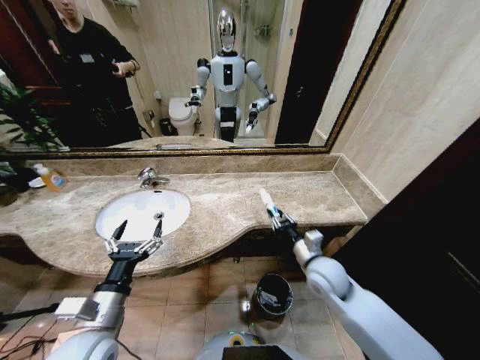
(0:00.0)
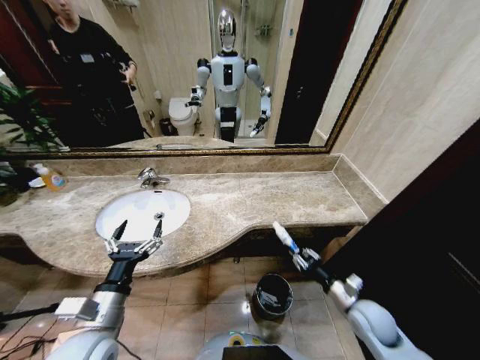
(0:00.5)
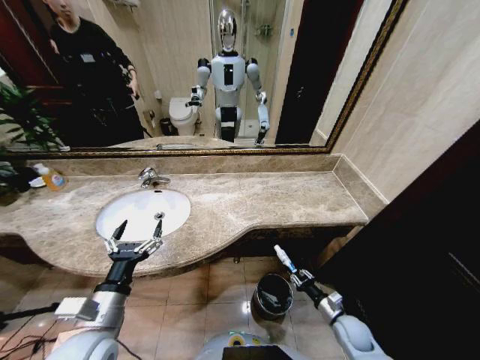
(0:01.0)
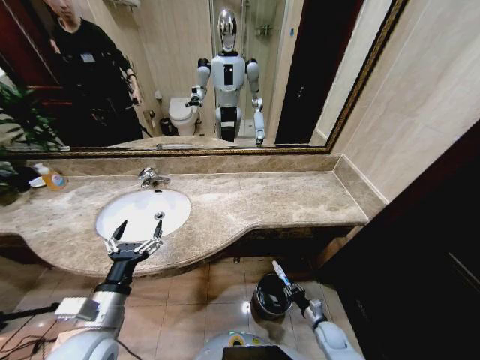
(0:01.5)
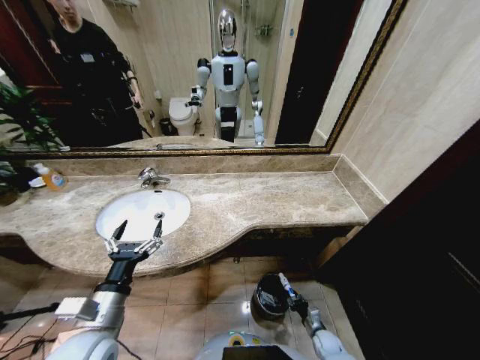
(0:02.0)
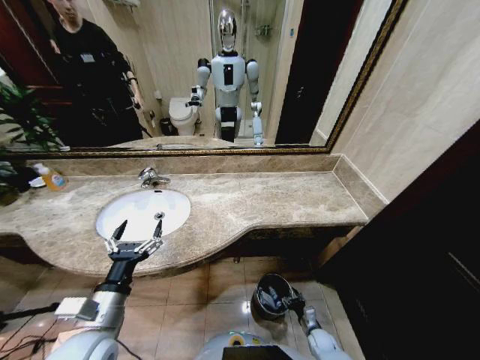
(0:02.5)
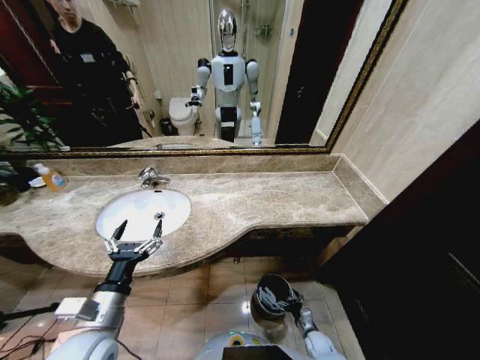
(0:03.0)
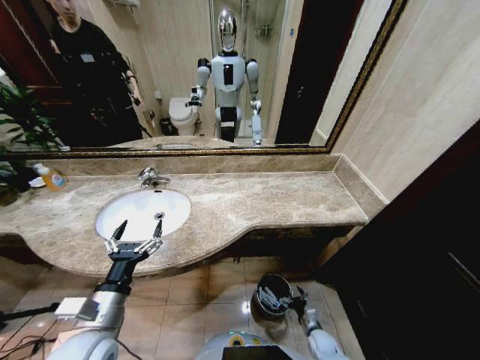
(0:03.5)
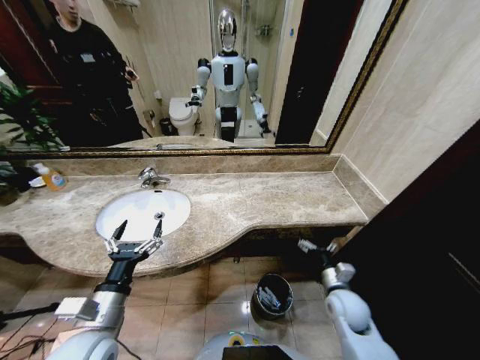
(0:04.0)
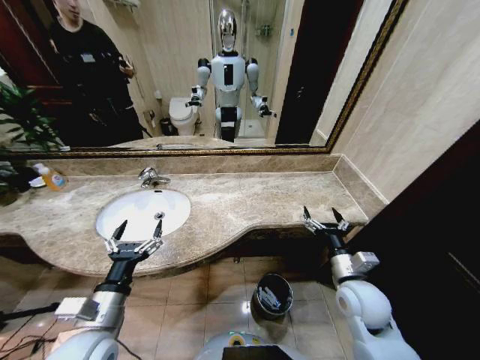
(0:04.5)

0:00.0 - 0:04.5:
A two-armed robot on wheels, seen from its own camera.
Task of the whole recording: Pick up the trash from the sink and place it in the trash bin.
0:00.0 - 0:02.0: The right gripper moves downward, approximately 40 cm.
0:02.0 - 0:04.5: The right gripper is displaced upward by roughly 40 cm, and opens.

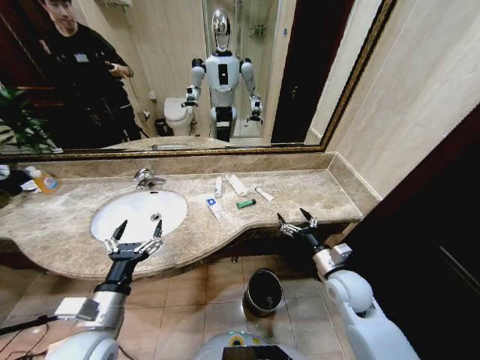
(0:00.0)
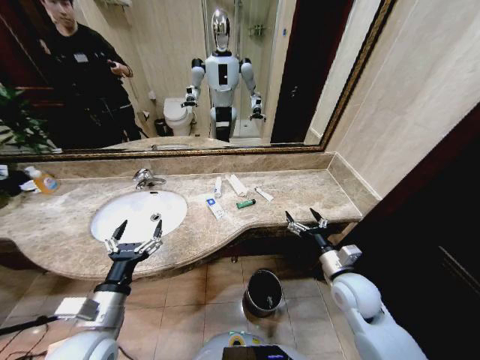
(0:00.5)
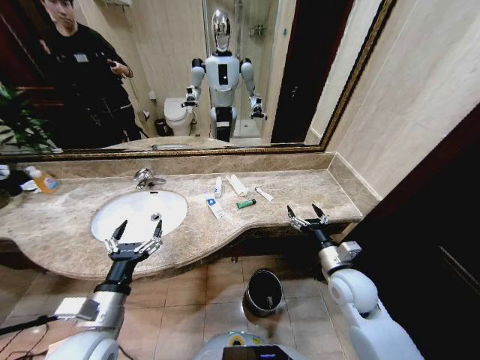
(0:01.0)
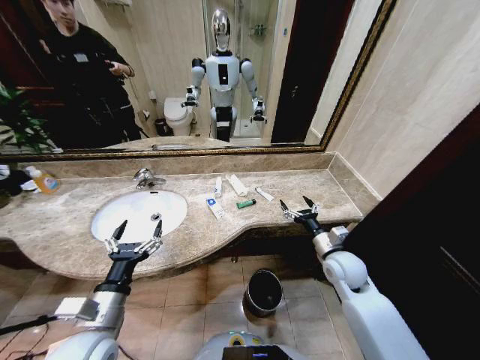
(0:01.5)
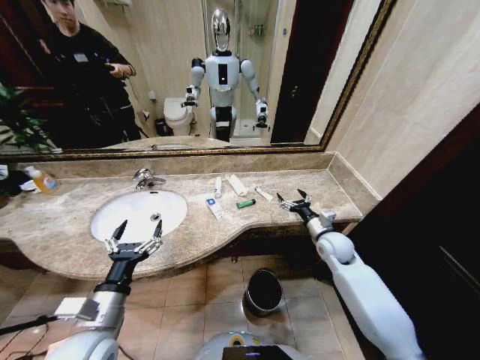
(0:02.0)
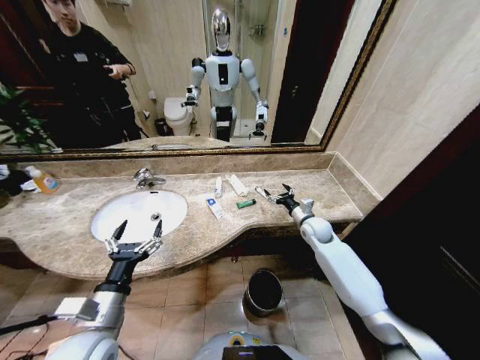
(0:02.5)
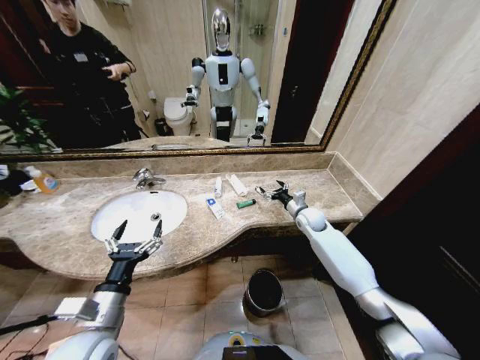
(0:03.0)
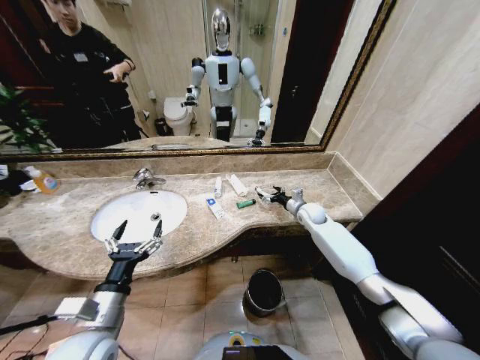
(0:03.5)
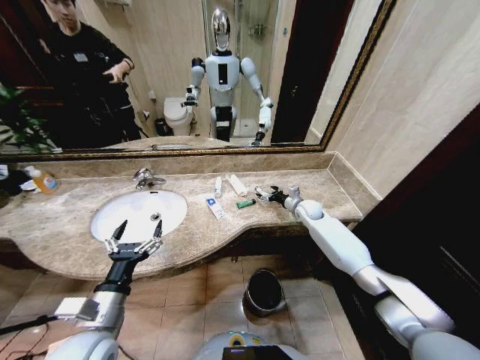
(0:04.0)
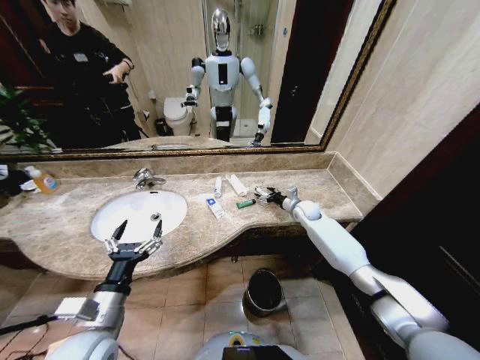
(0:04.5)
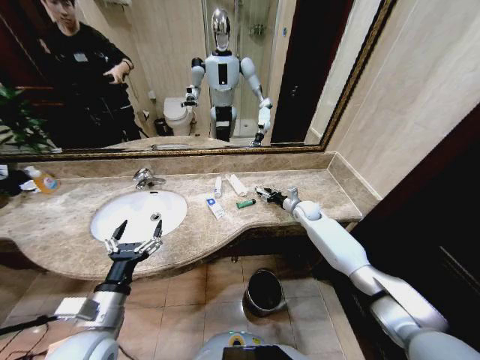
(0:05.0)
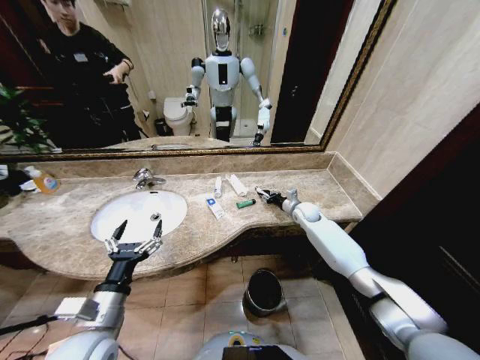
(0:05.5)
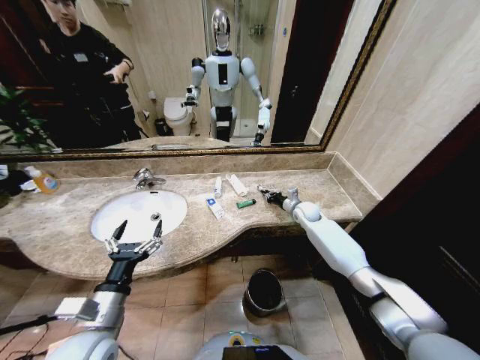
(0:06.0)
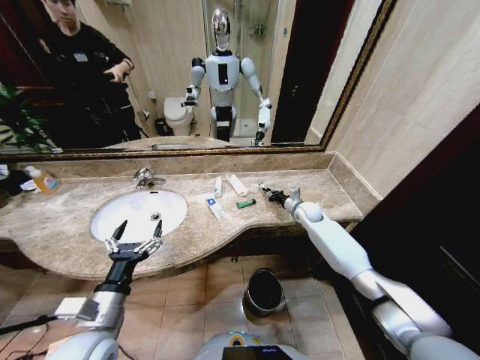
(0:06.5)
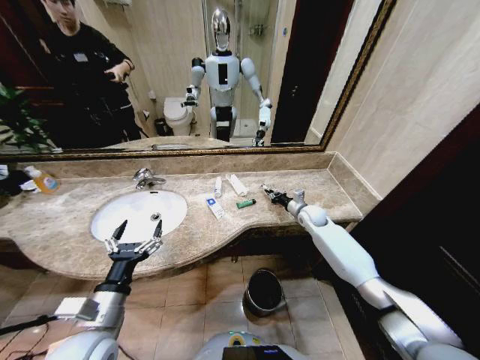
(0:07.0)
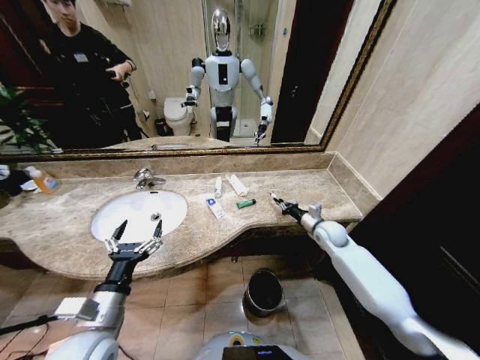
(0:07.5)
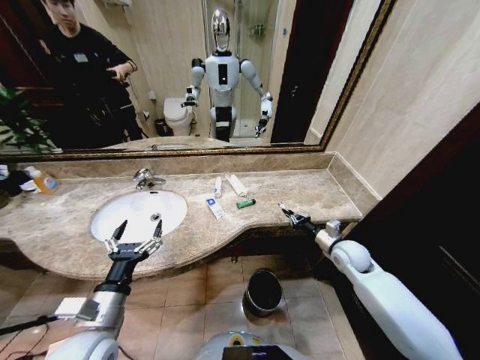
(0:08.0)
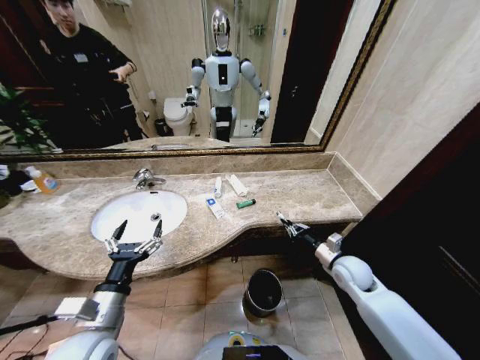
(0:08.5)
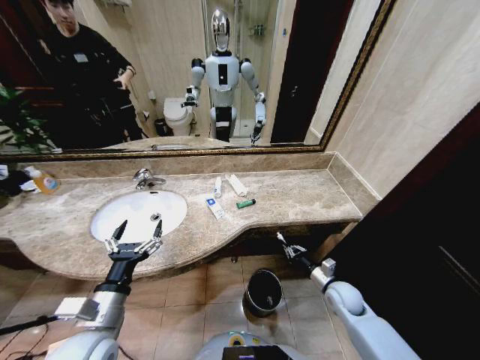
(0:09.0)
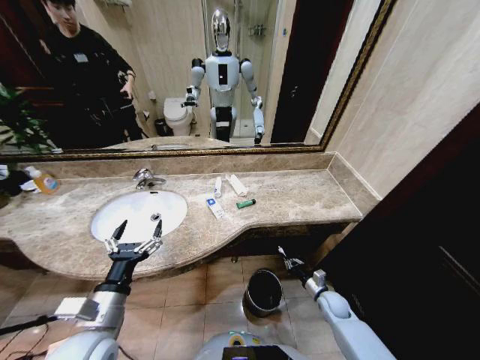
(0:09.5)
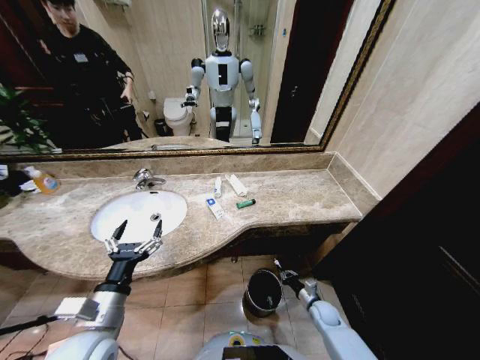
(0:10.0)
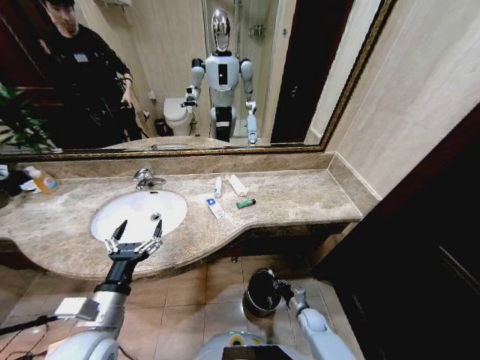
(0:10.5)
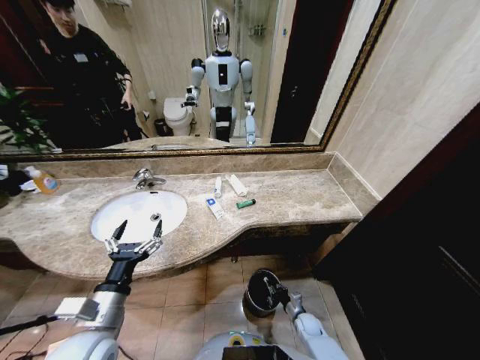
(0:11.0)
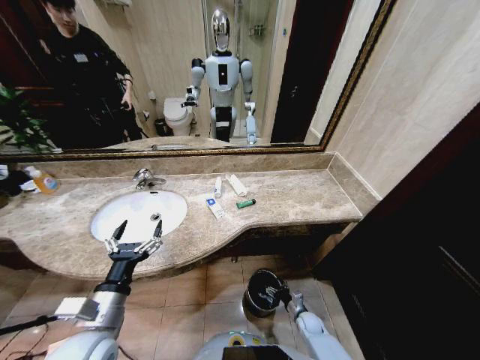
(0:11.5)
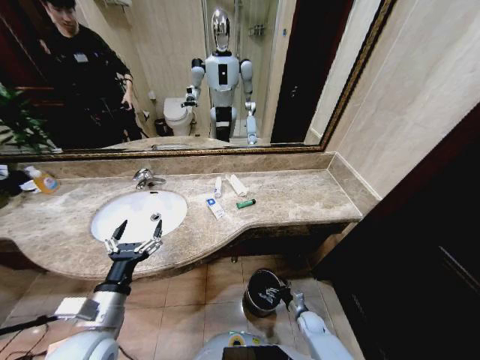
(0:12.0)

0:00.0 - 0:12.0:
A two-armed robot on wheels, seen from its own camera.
Task of the whole recording: Pick up the trash from the sink and place it in the trash bin.
0:02.0 - 0:04.0: The right gripper moves forward, approximately 15 cm.
0:04.0 - 0:06.0: The right gripper closes.
0:06.0 - 0:08.0: The right gripper heads backward, covering roughly 20 cm.
0:08.0 - 0:10.0: The right gripper goes roughly 30 cm downward and backward.
0:10.0 - 0:12.0: The right gripper travels downward by approximately 5 cm, and opens its fingers.

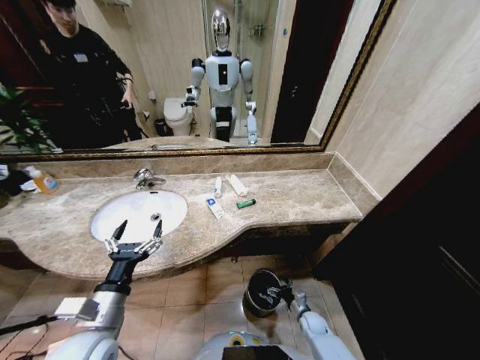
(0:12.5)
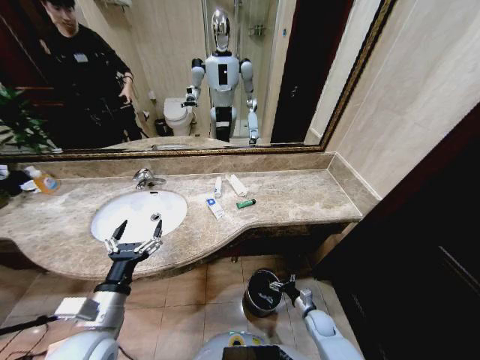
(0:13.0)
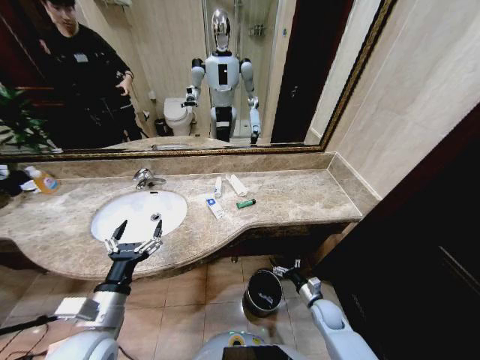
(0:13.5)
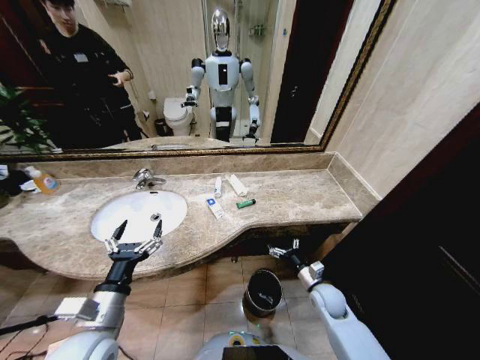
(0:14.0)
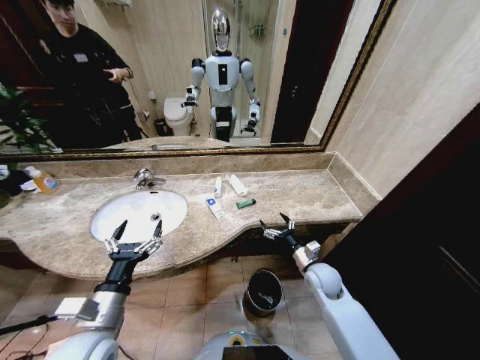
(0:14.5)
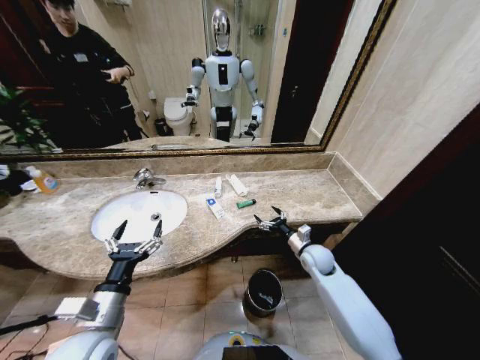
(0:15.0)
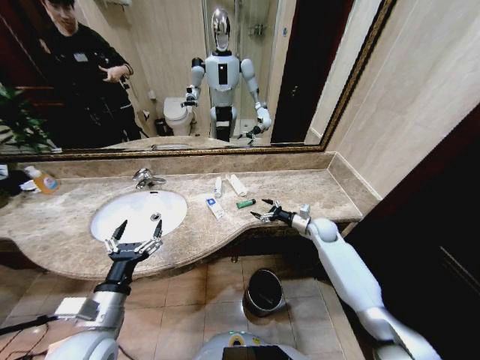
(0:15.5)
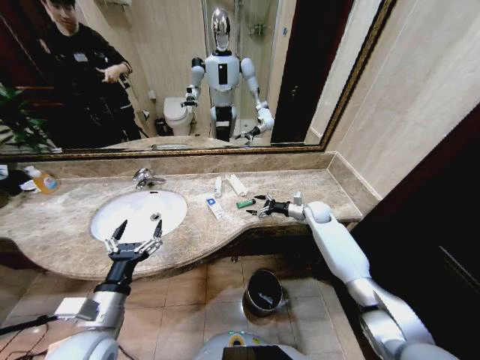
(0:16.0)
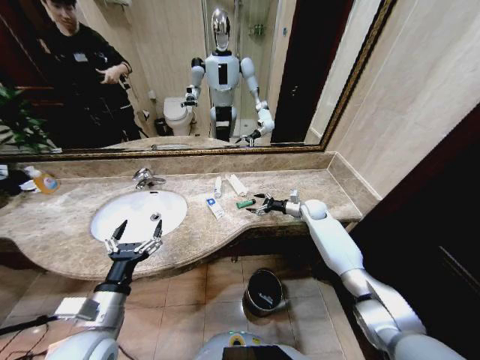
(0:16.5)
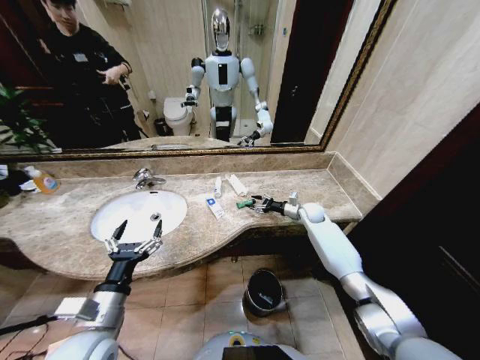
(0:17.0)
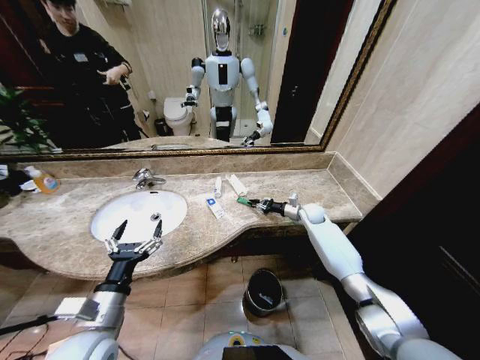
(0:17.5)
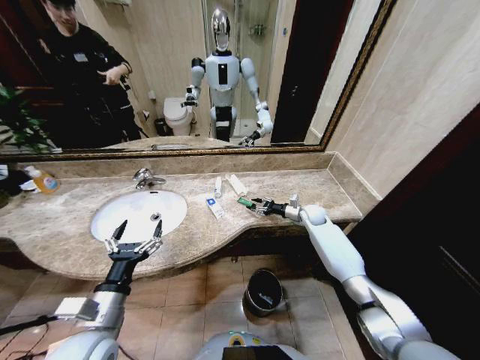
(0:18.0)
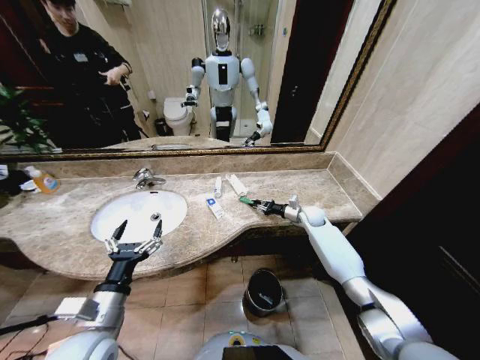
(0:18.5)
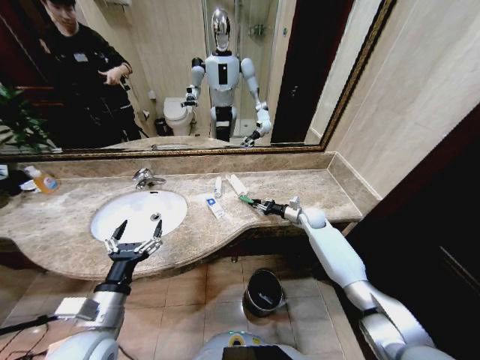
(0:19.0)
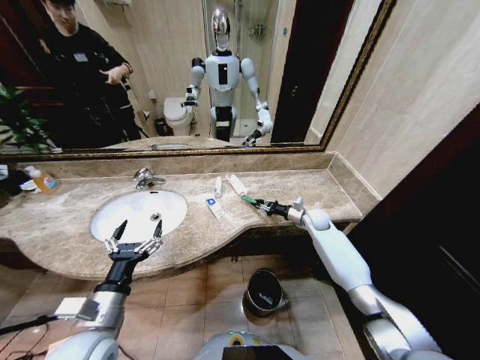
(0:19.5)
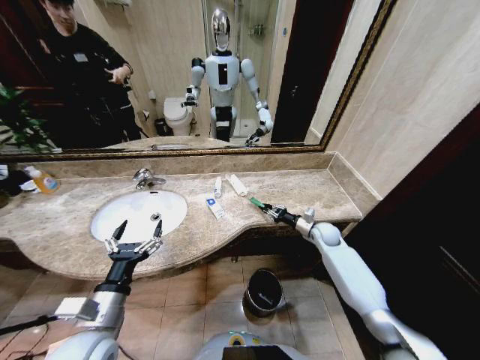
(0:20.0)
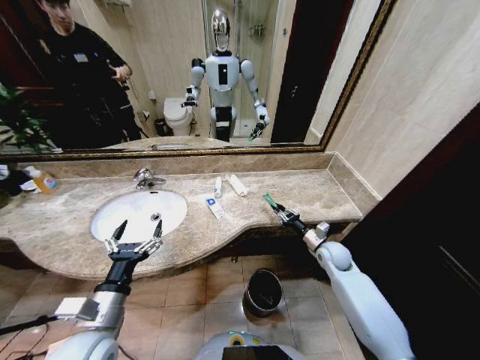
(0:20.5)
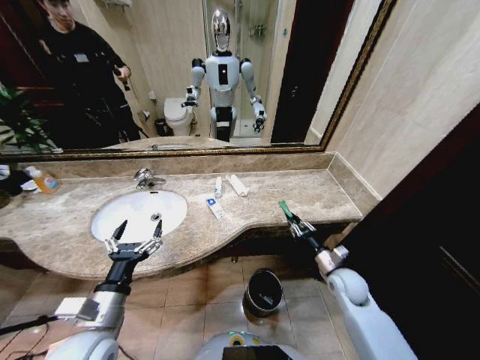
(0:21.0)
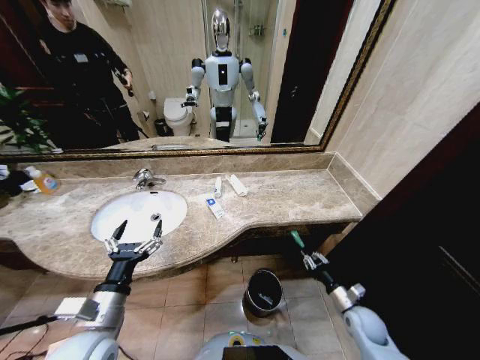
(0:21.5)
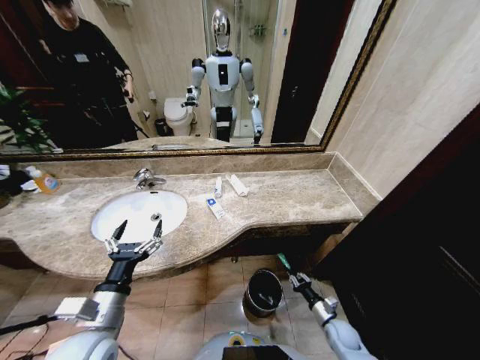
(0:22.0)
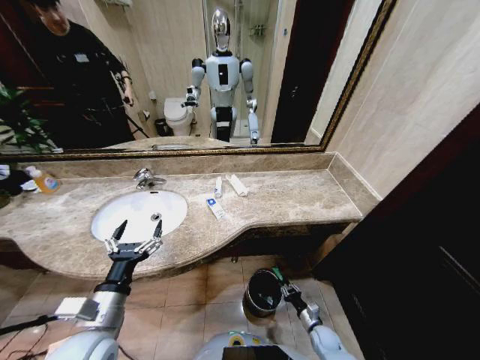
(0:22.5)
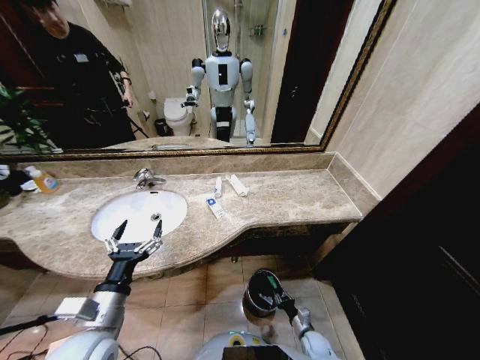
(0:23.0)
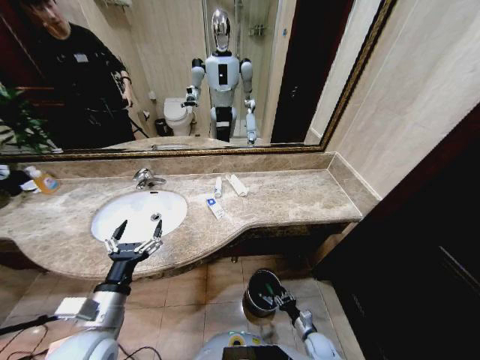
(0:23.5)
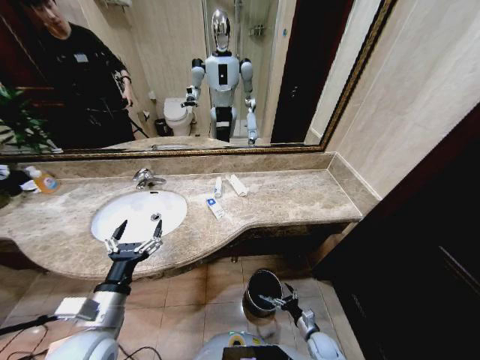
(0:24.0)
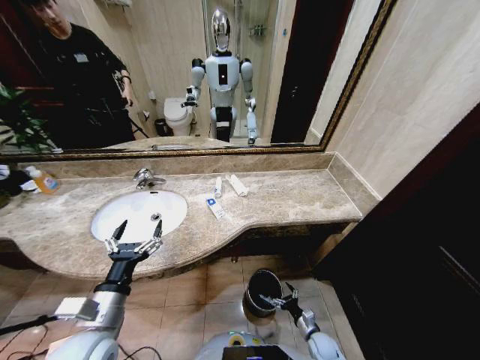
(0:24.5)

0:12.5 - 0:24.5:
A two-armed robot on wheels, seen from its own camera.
Task of the whole recording: Pick up the trash from the sink and place it in the trash bin.
0:12.5 - 0:14.5: The right gripper travels upward by roughly 25 cm.
0:14.5 - 0:16.5: The right gripper heads forward, covering about 25 cm.
0:16.5 - 0:18.5: The right gripper closes.
0:18.5 - 0:20.5: The right gripper travels backward by approximately 15 cm.
0:20.5 - 0:22.5: The right gripper goes about 35 cm downward and backward.
0:22.5 - 0:24.5: The right gripper opens its fingers.
